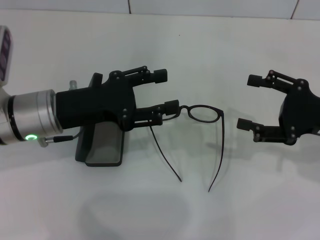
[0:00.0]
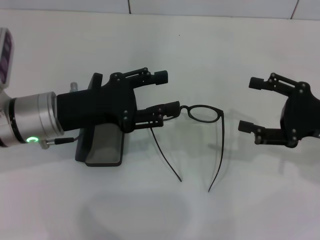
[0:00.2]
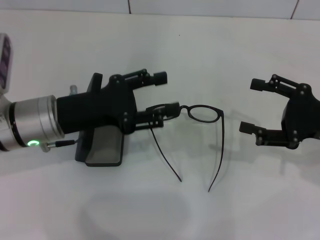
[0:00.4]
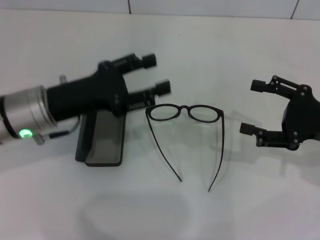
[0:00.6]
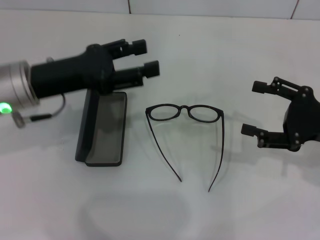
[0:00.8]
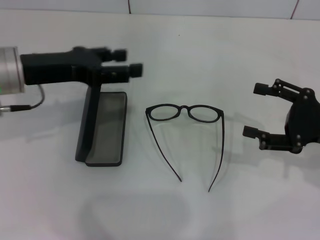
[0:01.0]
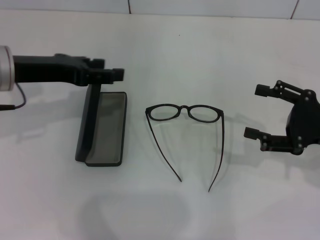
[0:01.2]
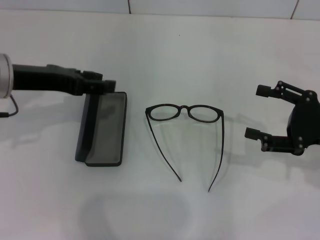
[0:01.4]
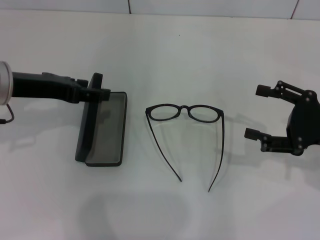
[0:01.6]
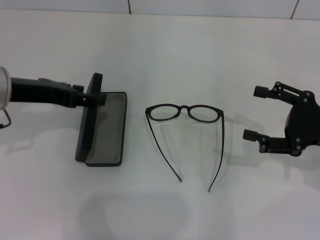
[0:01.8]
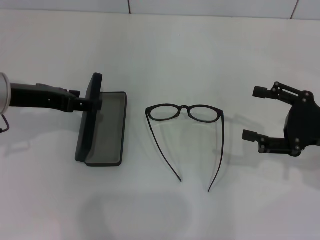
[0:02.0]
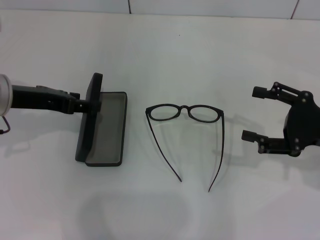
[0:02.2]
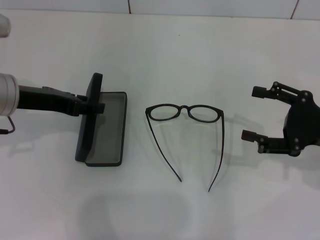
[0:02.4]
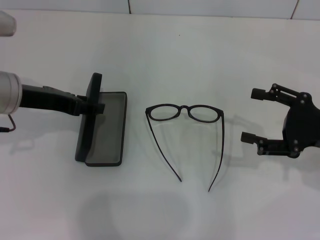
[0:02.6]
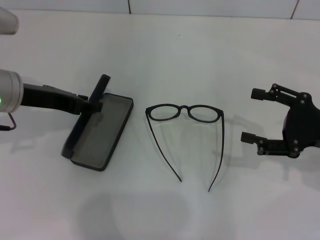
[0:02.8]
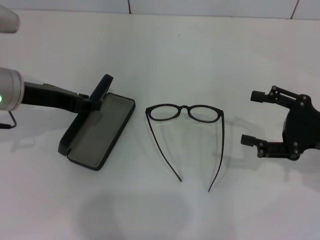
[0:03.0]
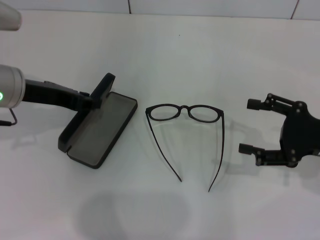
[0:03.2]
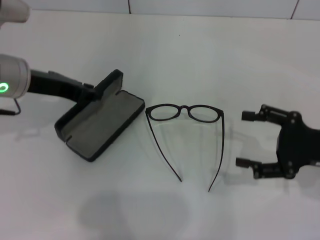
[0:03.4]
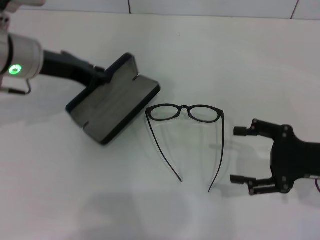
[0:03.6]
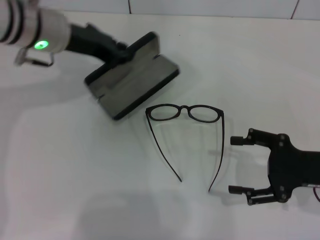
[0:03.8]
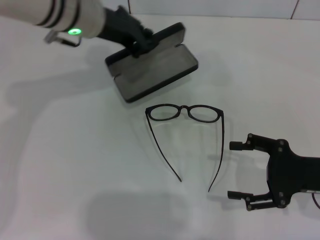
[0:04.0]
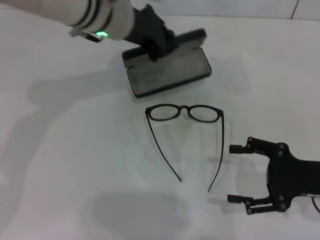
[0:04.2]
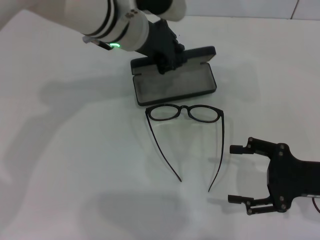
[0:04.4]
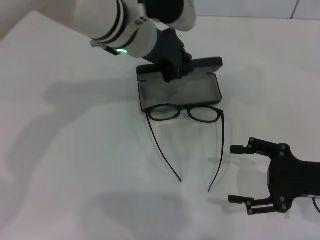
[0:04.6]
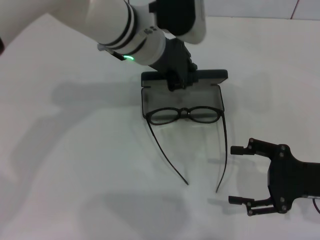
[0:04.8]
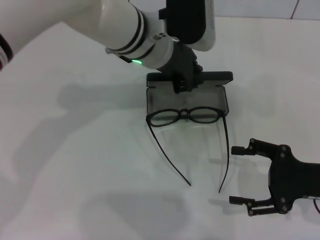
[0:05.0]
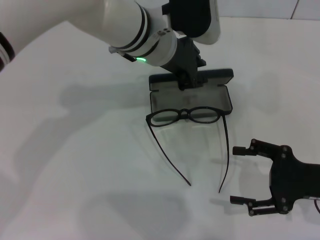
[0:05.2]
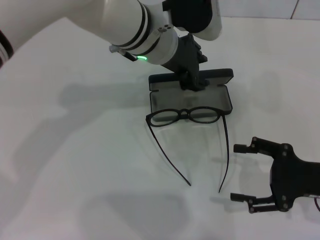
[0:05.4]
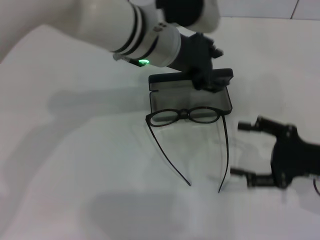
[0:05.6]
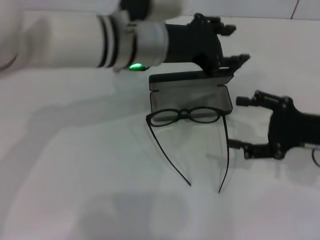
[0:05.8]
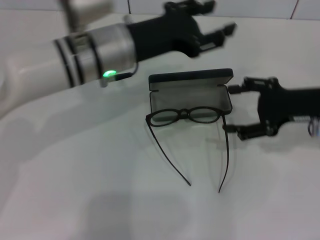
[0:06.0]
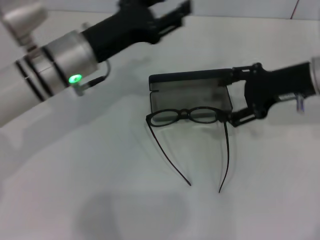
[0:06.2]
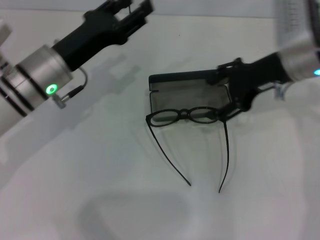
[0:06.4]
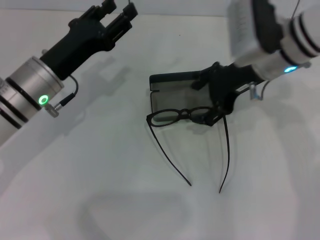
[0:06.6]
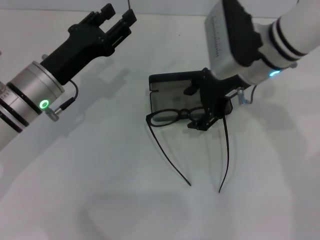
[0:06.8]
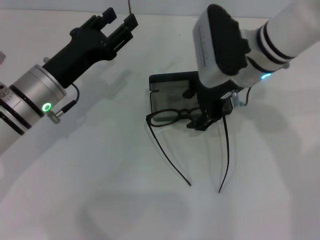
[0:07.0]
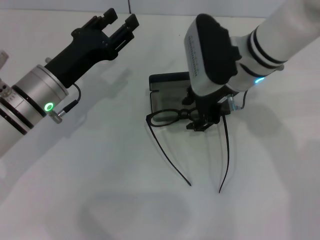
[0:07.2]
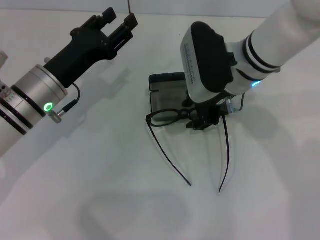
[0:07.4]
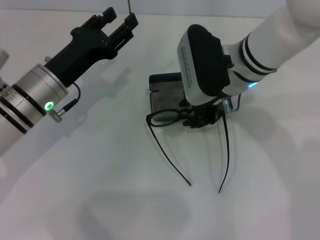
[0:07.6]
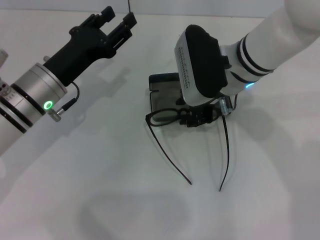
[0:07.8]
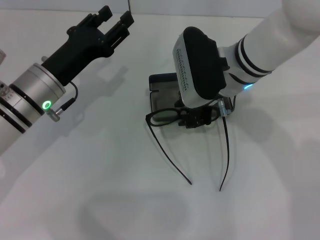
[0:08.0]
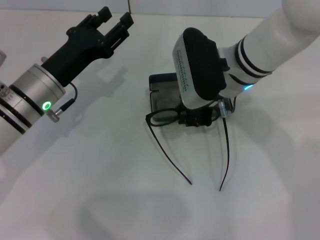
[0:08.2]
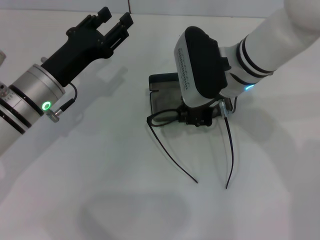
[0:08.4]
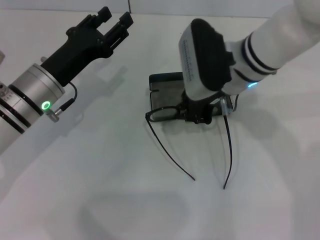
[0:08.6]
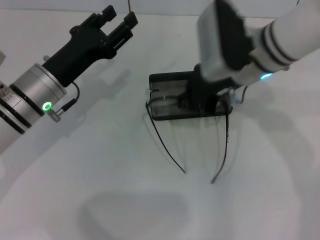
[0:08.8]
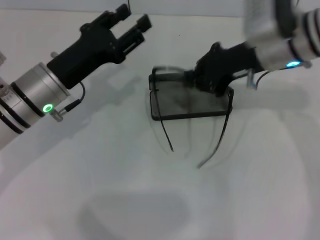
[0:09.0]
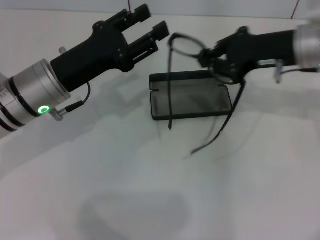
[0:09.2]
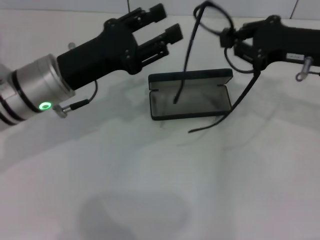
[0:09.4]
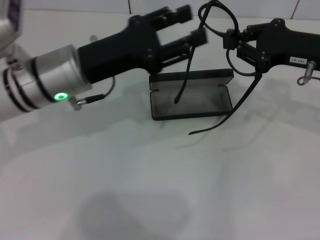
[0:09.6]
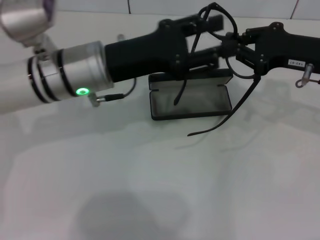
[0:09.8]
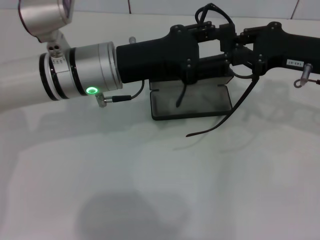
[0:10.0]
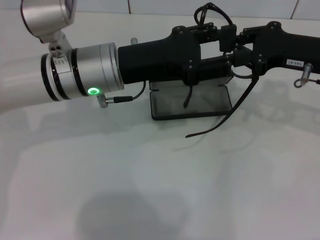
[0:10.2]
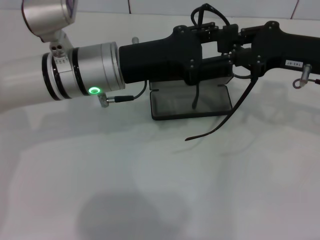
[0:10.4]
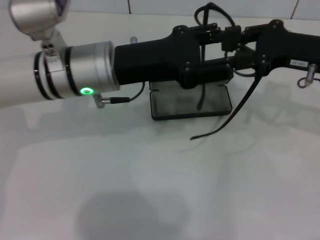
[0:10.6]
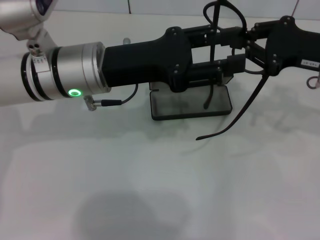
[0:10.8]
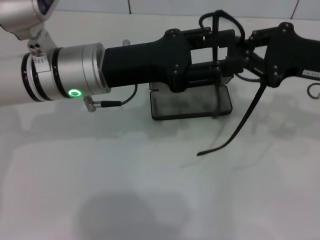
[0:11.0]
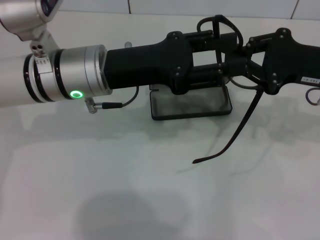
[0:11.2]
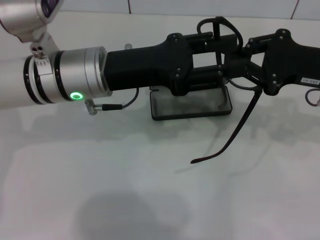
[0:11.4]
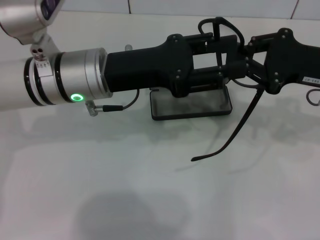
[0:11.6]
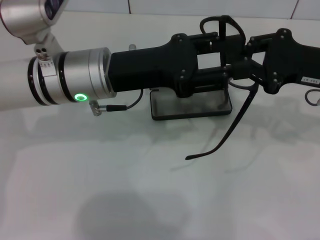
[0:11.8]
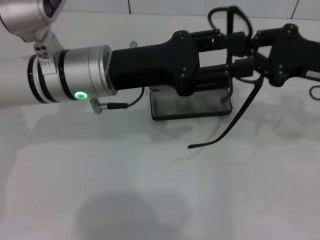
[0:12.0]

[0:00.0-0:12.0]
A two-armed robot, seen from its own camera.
Step, 0:00.0 to 0:02.6: Grab the glasses case with your left hand.
Step, 0:03.0 to 0:05.0: Place the glasses case in the center of the table with your left hand.
Step, 0:05.4 to 0:08.2: Grab the eyeglass frame with your right hand.
0:00.0 to 0:01.6: The left gripper is displaced upward by about 5 cm.
0:01.6 to 0:03.0: The left gripper closes its fingers.
0:03.0 to 0:04.4: The left gripper heads to the right and forward, covering some 20 cm, and closes up.
0:04.4 to 0:06.0: The left gripper moves backward, approximately 5 cm, and opens up, while the right gripper travels forward and upward by some 10 cm.
0:06.0 to 0:07.6: The left gripper goes some 10 cm to the left and downward; the right gripper heads to the left, covering roughly 15 cm, and closes its fingers.
0:07.6 to 0:09.0: The right gripper heads to the right, covering approximately 5 cm, and closes.
0:09.0 to 0:10.4: The right gripper moves to the right, about 10 cm. Meanwhile the left gripper is displaced to the right and upward by about 10 cm.
0:10.4 to 0:12.0: The grippers stay close to where they were, moving slightly.

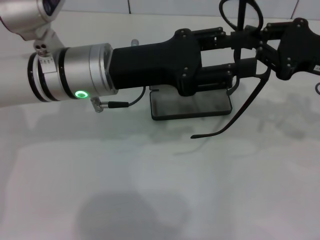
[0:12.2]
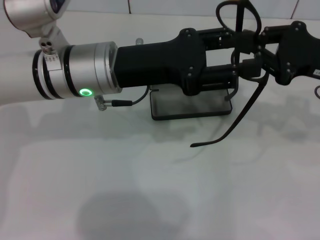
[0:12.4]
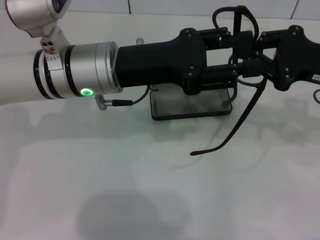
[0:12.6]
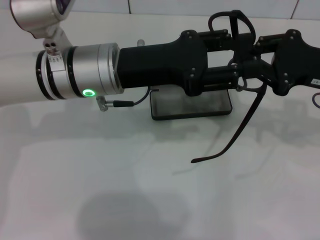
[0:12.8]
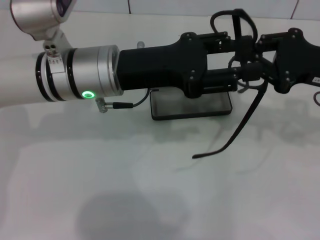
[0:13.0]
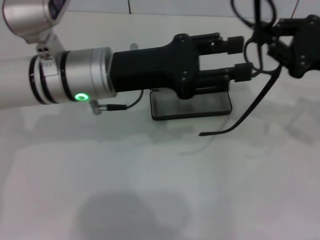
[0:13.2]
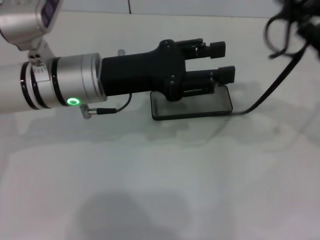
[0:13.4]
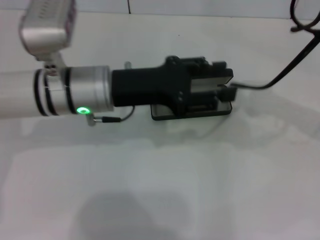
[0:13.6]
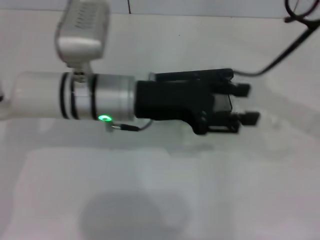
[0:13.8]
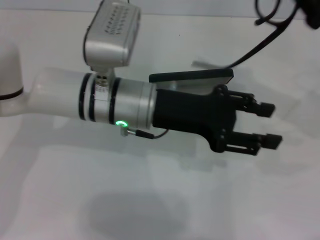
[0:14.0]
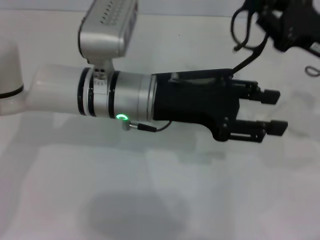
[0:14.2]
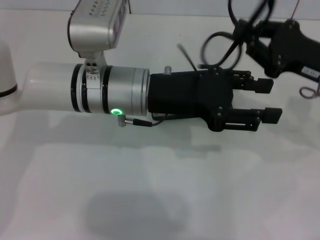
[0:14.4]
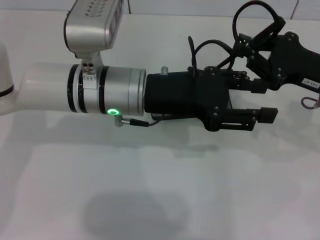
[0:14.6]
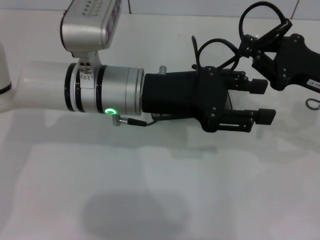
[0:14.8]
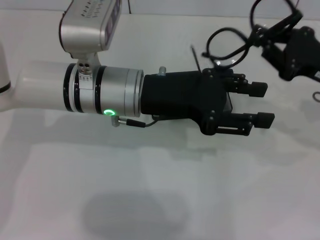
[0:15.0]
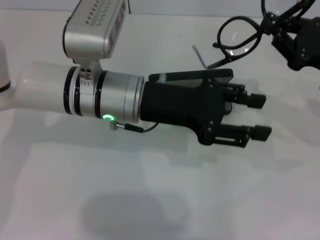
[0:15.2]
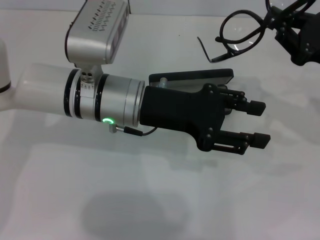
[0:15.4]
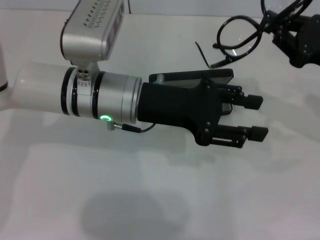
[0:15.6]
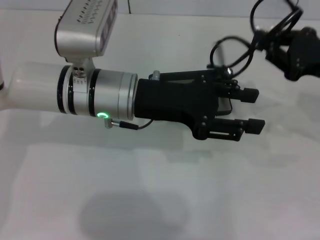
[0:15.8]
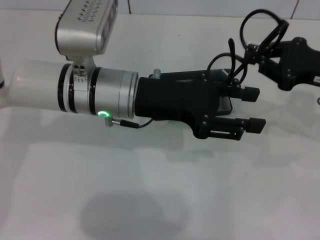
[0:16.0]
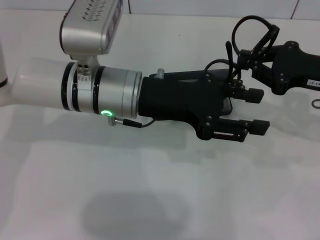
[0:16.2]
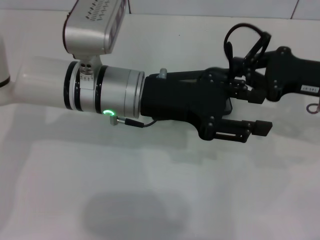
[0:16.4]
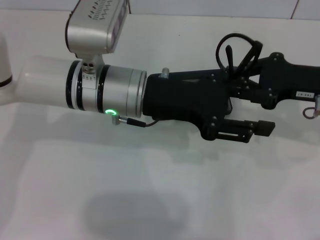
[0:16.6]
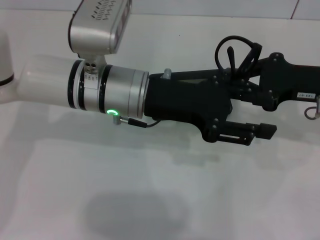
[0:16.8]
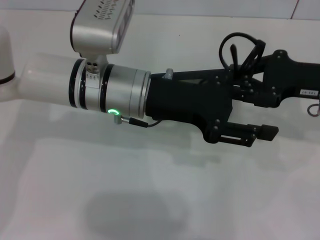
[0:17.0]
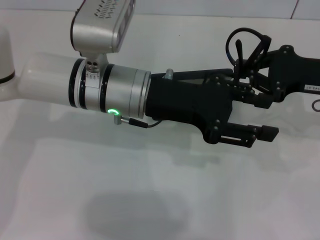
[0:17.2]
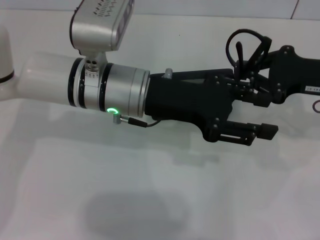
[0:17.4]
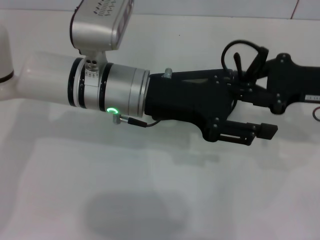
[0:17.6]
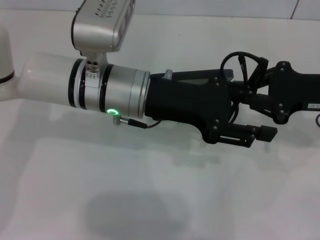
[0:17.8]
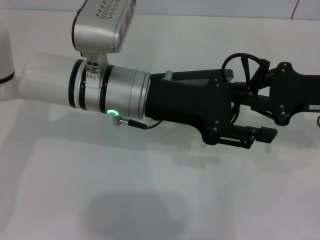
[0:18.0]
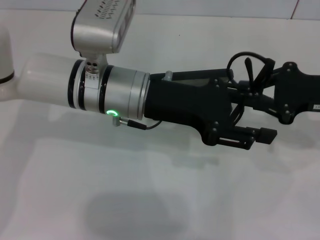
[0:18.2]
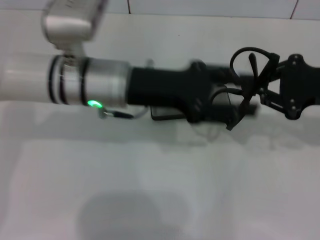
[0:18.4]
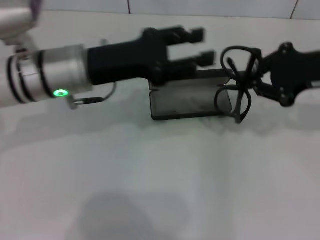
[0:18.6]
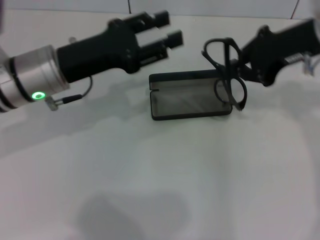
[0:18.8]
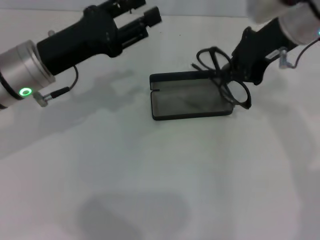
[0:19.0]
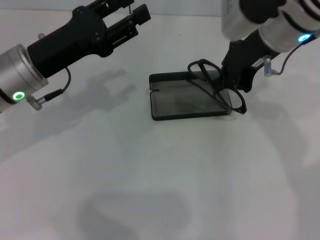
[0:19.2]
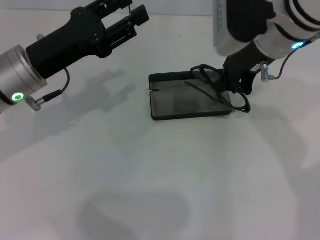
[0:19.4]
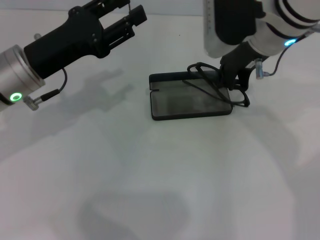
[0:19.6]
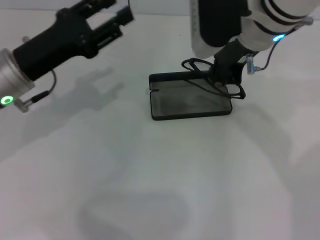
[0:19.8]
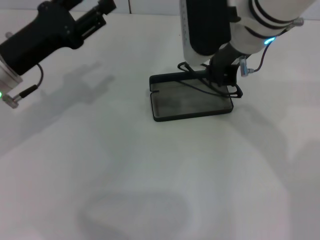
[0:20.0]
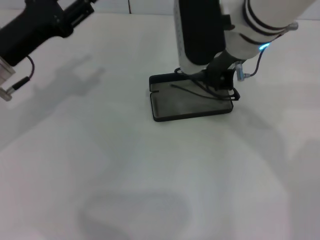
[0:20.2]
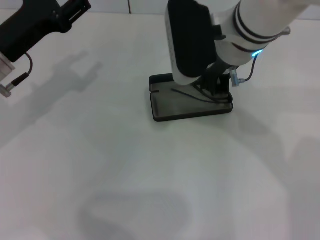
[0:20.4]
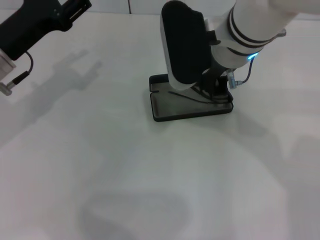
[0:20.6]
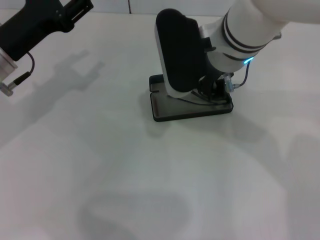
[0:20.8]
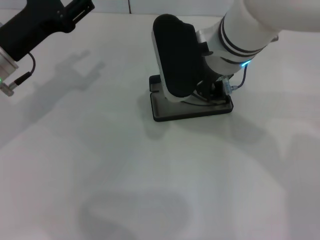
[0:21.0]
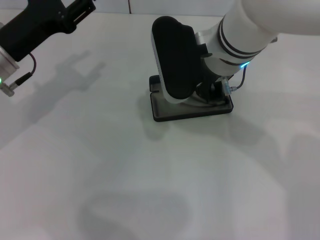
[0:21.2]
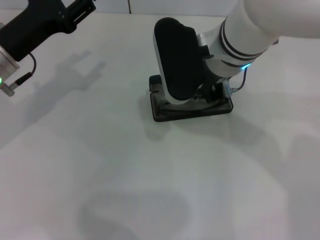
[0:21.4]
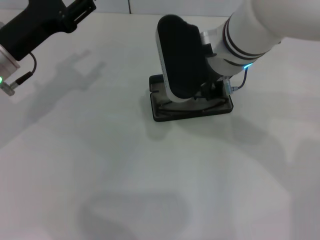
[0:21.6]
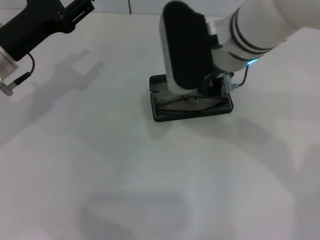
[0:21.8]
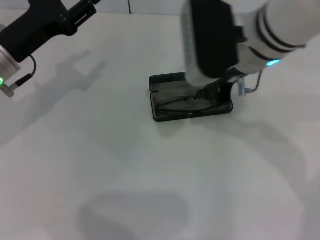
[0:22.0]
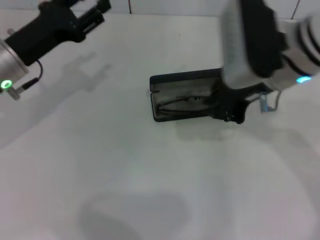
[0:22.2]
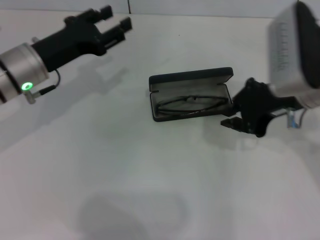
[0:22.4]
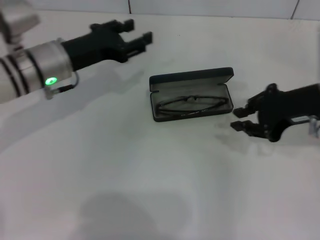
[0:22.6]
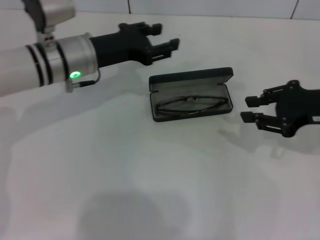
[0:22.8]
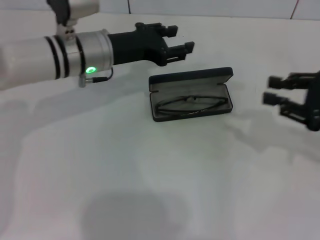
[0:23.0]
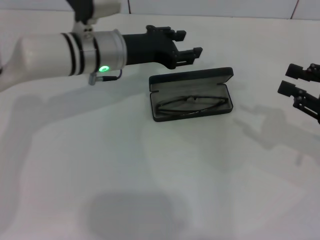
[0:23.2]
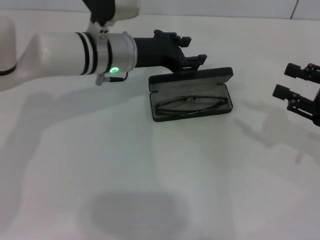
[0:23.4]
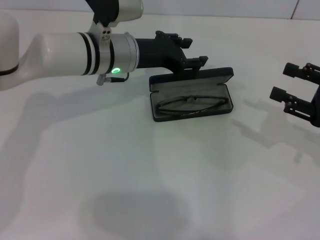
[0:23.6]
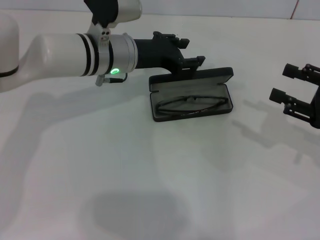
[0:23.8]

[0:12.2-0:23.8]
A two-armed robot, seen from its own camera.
Step, 0:12.2 to 0:18.0: Fold the frame with your left hand.
Step, 0:18.2 to 0:21.2: Put the glasses into the case with your right hand.
0:12.2 to 0:13.6: The right gripper changes place by about 5 cm.
0:13.6 to 0:15.0: The right gripper ends up roughly 5 cm from where it was.
0:15.0 to 0:16.6: The grippers stay close to where they were, moving slightly.
0:16.6 to 0:18.0: The grippers stay close to where they were, moving slightly.
0:18.0 to 0:19.4: The right gripper goes approximately 20 cm to the left, upward and forward, while the left gripper is displaced to the left by roughly 15 cm.
0:19.4 to 0:21.0: The right gripper travels to the left by roughly 5 cm.
0:21.0 to 0:22.4: The right gripper shifts approximately 10 cm to the right.
0:22.4 to 0:23.8: The left gripper shifts approximately 15 cm to the right and forward. The right gripper is displaced to the right and downward by approximately 15 cm, and opens its fingers.
